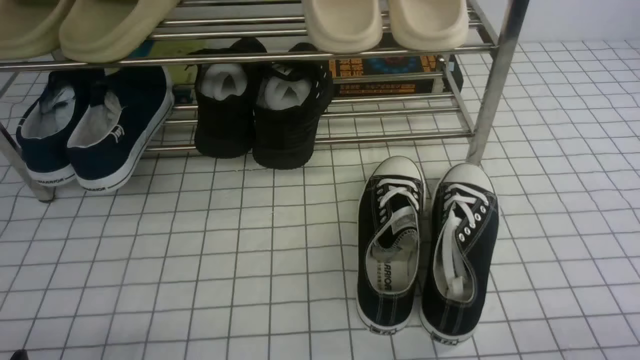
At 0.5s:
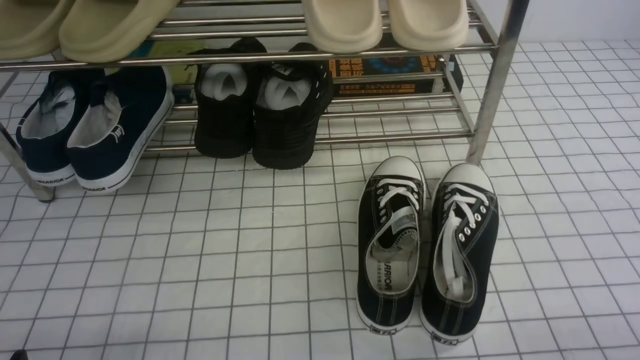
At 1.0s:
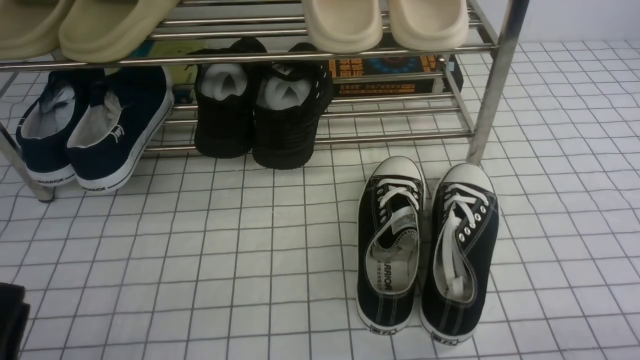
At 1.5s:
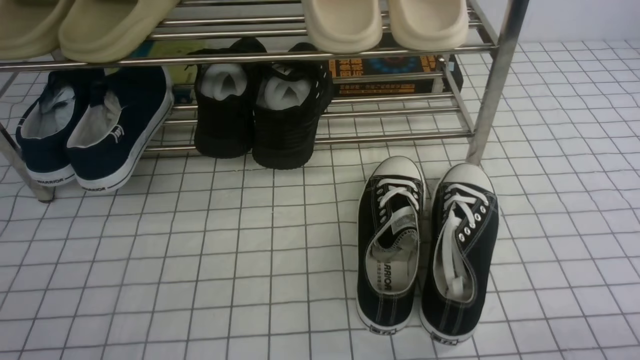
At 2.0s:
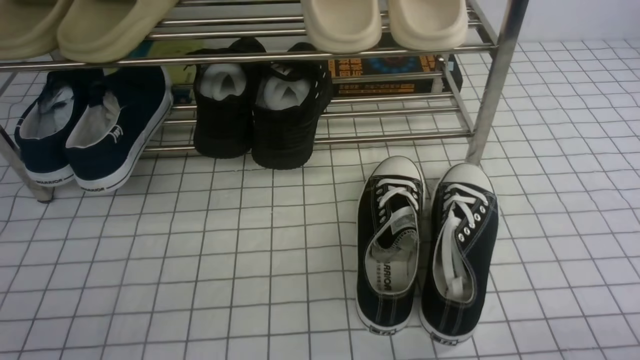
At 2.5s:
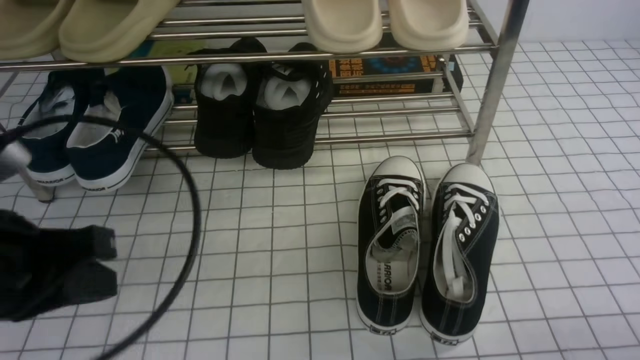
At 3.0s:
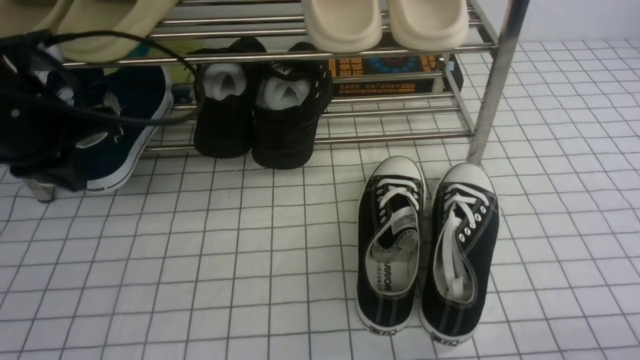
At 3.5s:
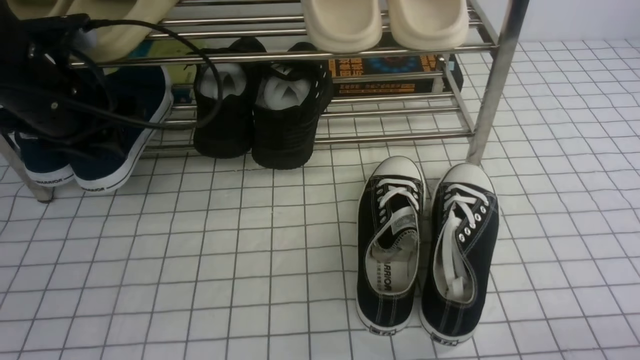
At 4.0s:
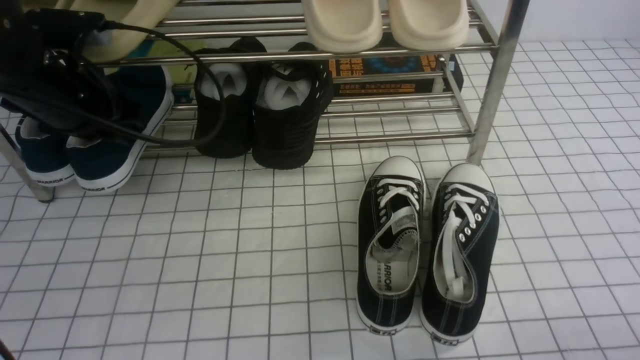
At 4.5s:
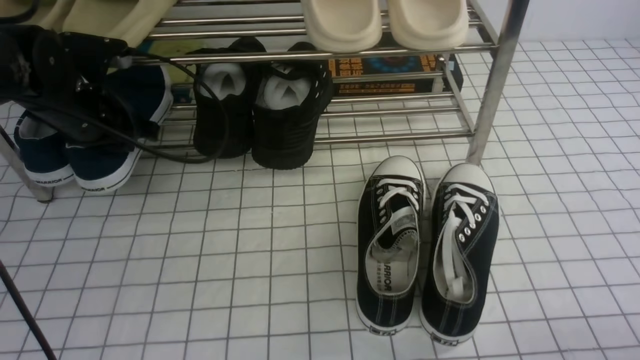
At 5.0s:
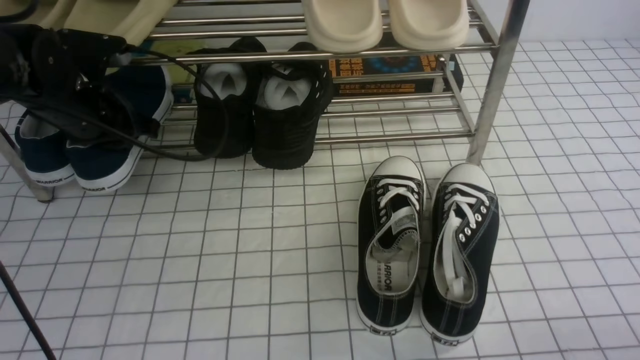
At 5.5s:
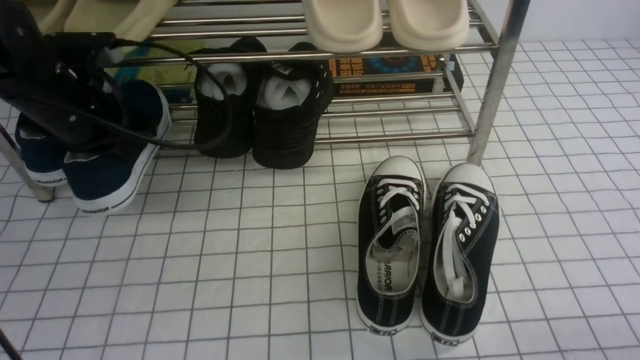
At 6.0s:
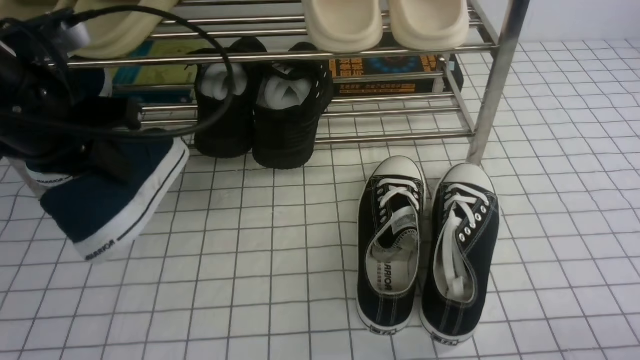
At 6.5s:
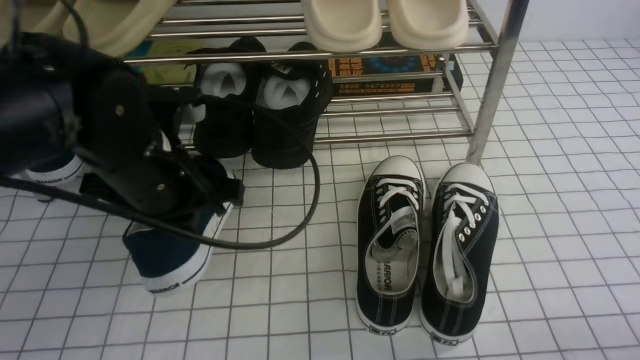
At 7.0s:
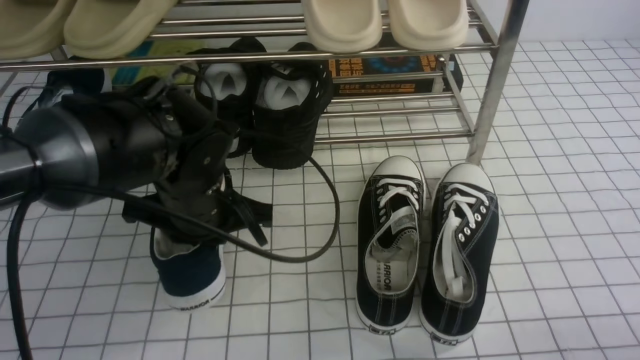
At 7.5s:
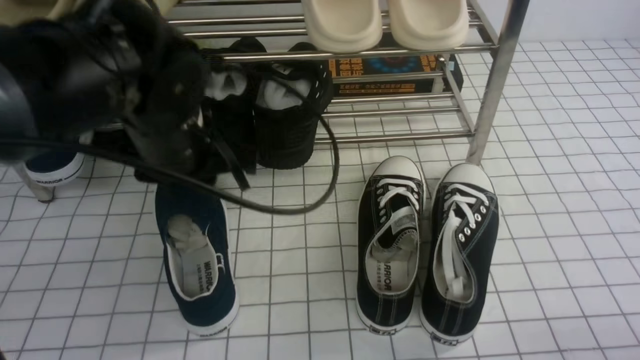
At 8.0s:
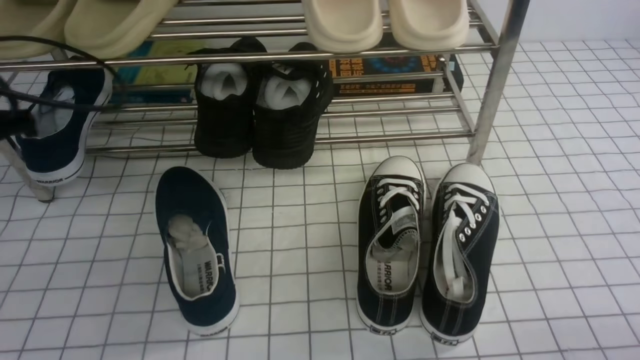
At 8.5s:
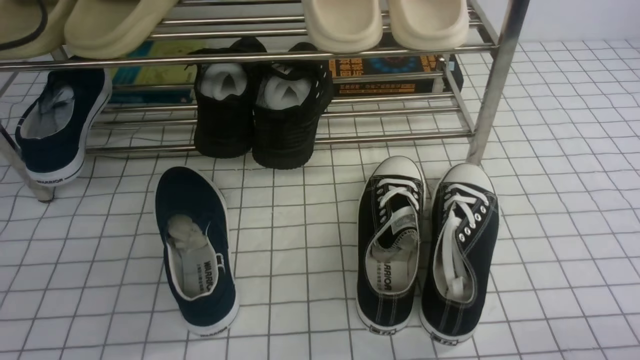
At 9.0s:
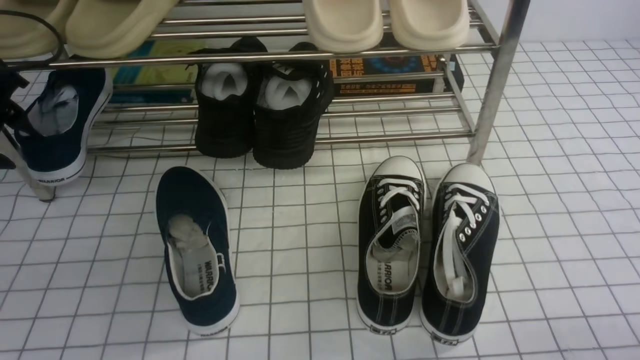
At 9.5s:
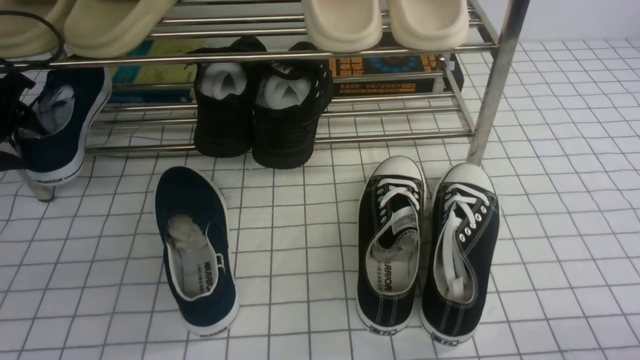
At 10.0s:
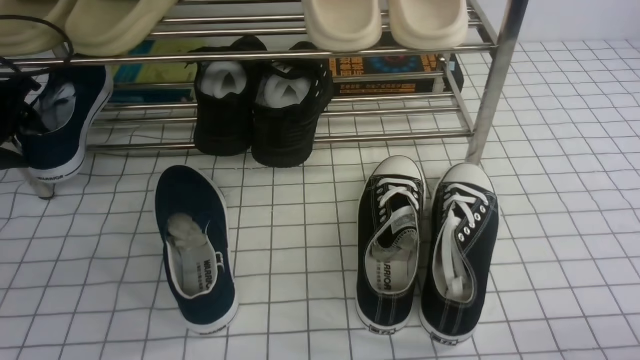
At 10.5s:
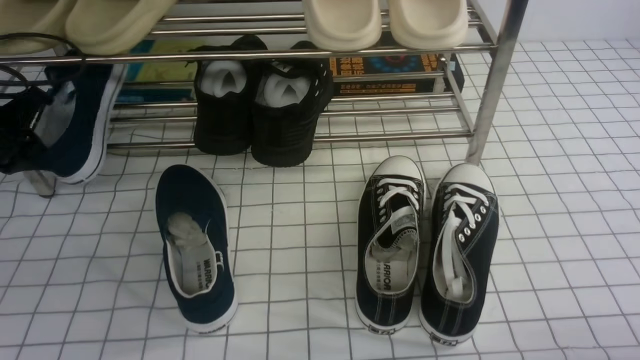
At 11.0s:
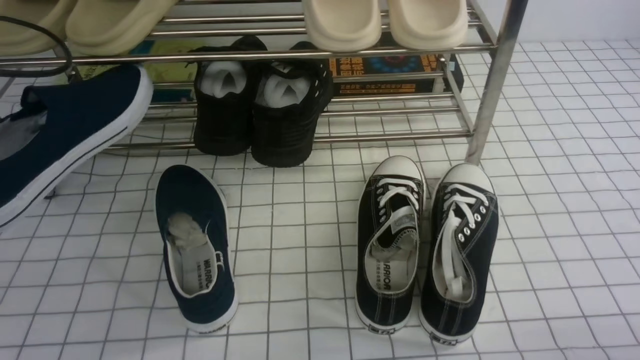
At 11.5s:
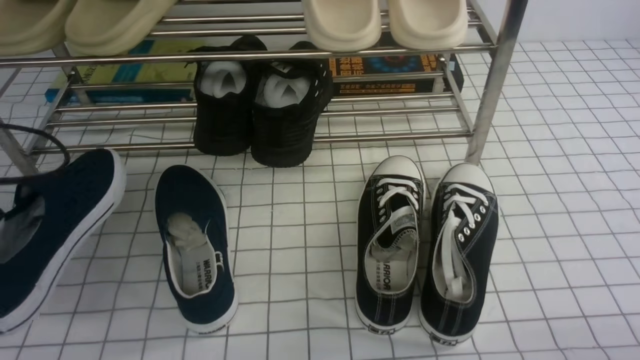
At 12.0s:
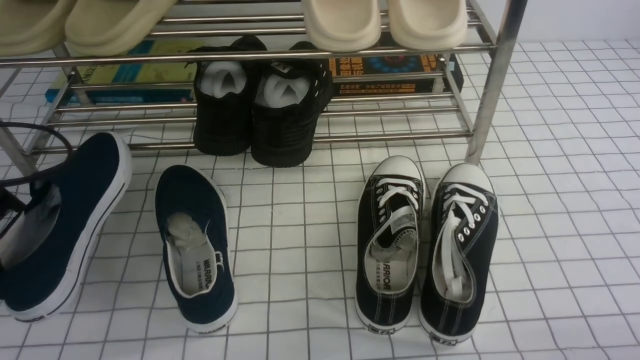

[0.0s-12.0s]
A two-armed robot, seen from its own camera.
Step, 0.0s to 5.0s: use the left arm to clamp a shoe on the left side of the shoe rack.
Step, 5.5s to 7.0s: Use your left arm to remove the clamped shoe from the shoe rack and put it down.
Step, 8.0s to 10.0s: use the left arm to clamp a shoe on the left side of the shoe rack.
2.0s to 4.0s: The left gripper heads forward, covering about 30 cm, and opens up.
4.0s to 6.0s: The left gripper is displaced backward by approximately 10 cm, and closes.
6.0s to 8.0s: The left gripper heads to the left, covering some 10 cm.
8.0s to 10.0s: The left gripper heads forward, downward and to the left, covering about 10 cm, and opens its fingers.
10.0s to 12.0s: The left gripper is displaced backward by some 15 cm, and closes its fingers.

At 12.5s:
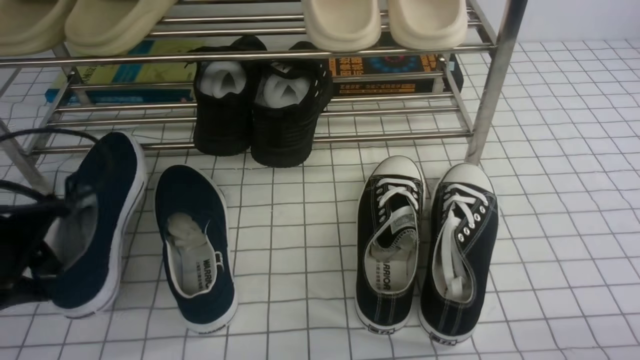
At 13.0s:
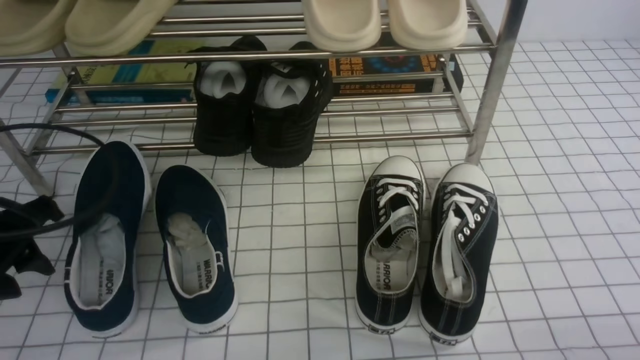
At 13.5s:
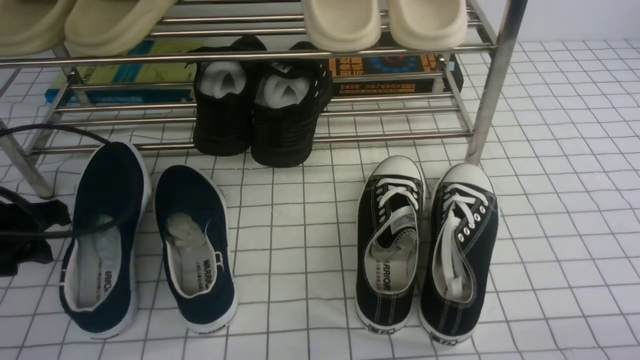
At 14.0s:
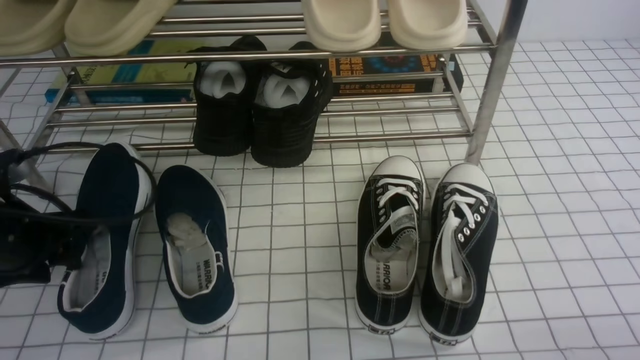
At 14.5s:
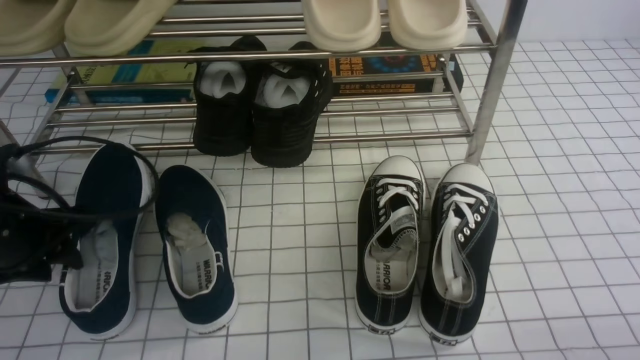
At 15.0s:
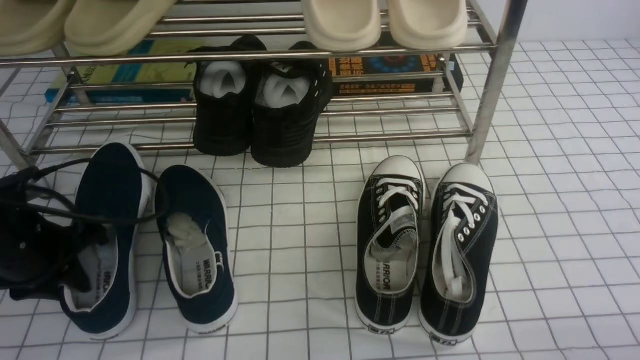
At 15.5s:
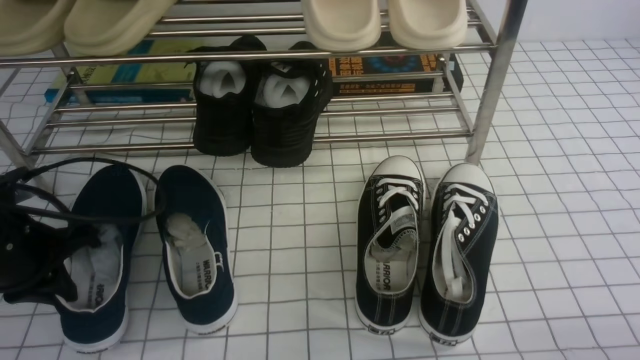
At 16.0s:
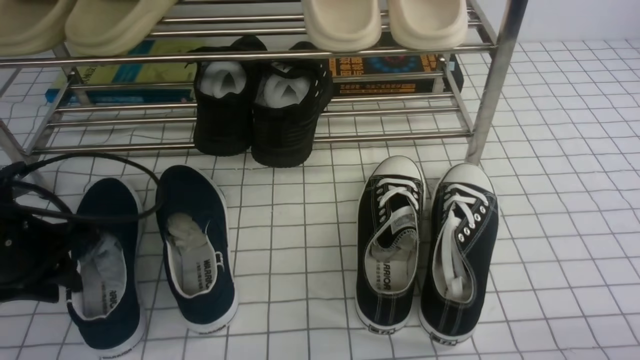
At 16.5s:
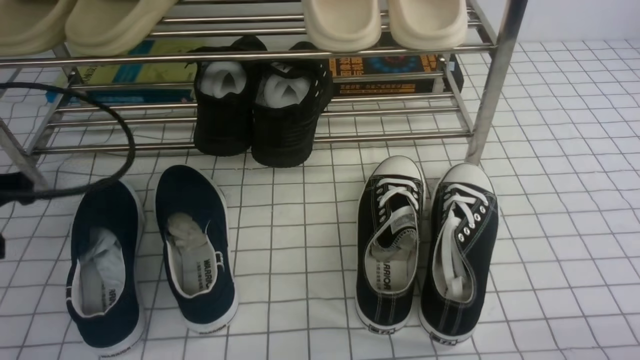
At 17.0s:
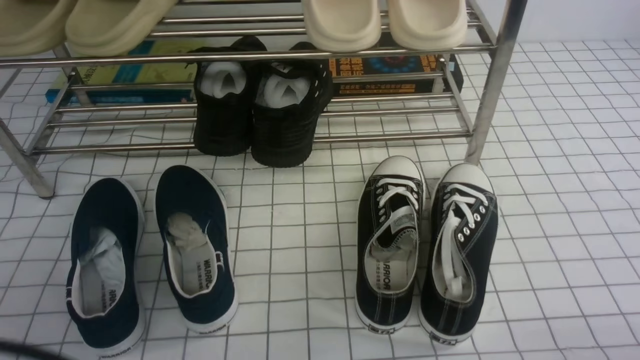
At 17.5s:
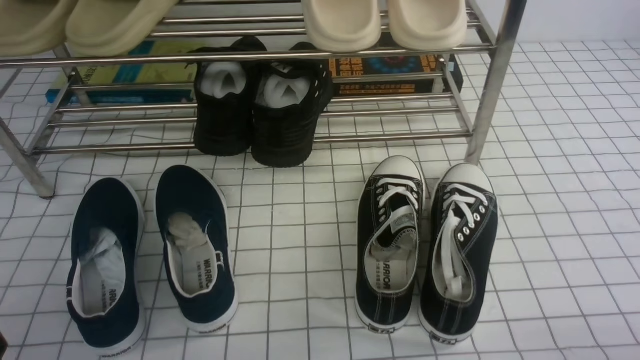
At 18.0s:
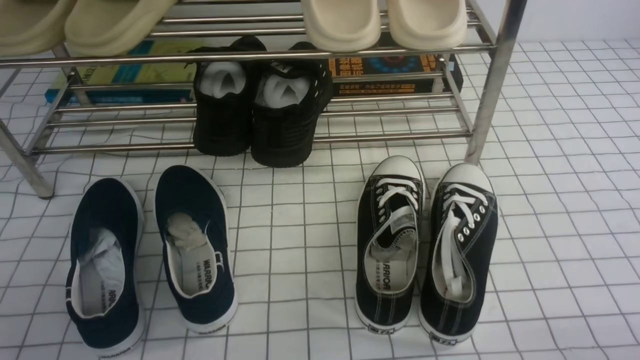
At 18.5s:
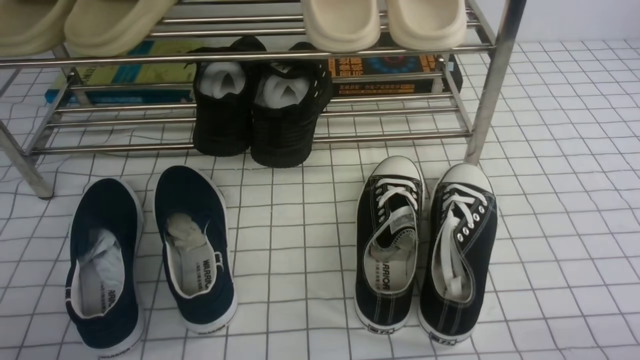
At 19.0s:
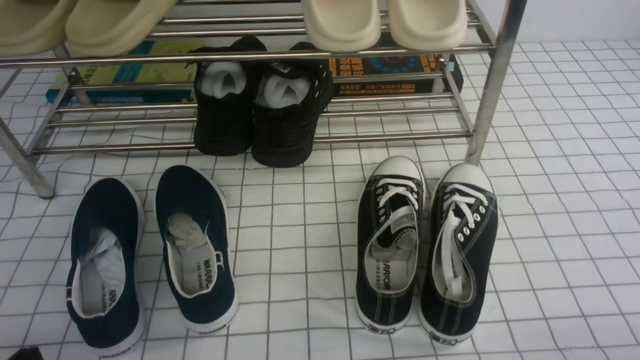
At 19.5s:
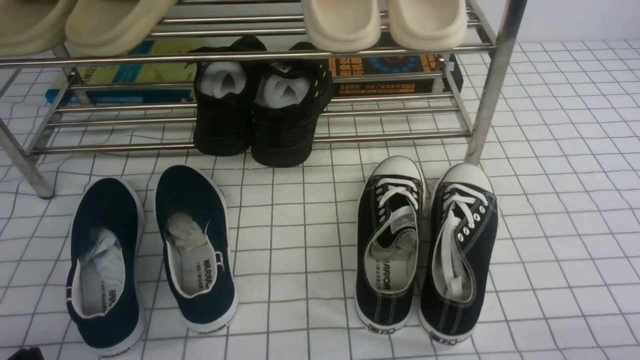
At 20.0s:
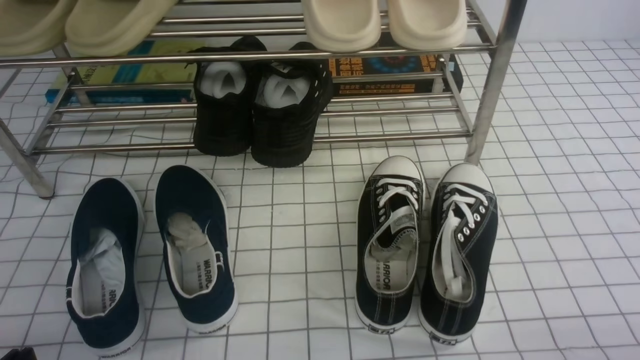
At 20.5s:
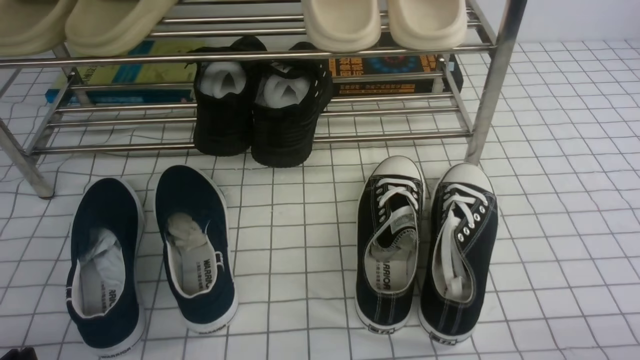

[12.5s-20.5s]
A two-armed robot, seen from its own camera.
Step, 12.5s to 16.0s: Use your left arm to remove the clamped shoe from the shoe rack and put it down.
14.5s to 16.5s: The left gripper is displaced upward and backward by about 10 cm, and closes up.
16.5s to 18.5s: The left gripper shifts approximately 20 cm backward and downward.
